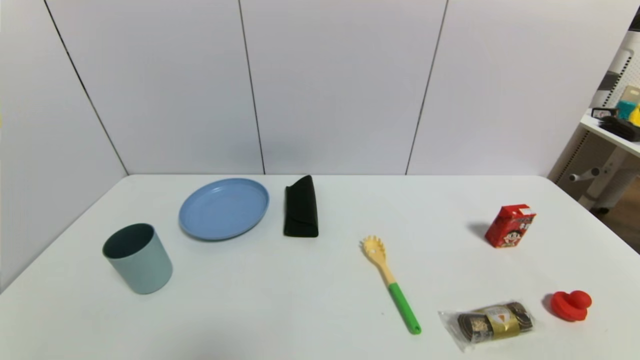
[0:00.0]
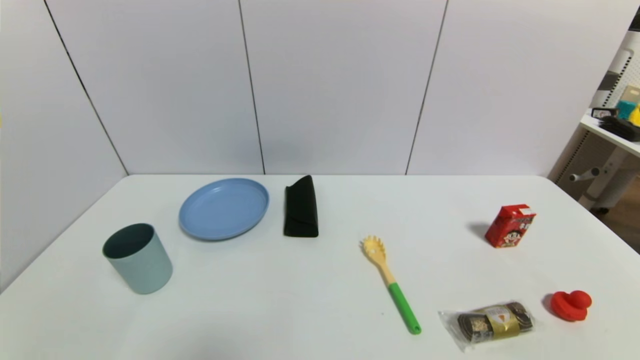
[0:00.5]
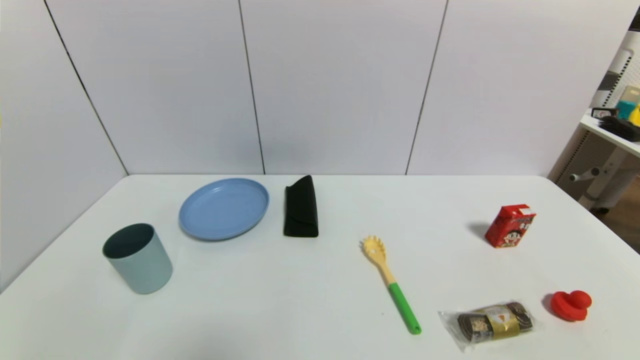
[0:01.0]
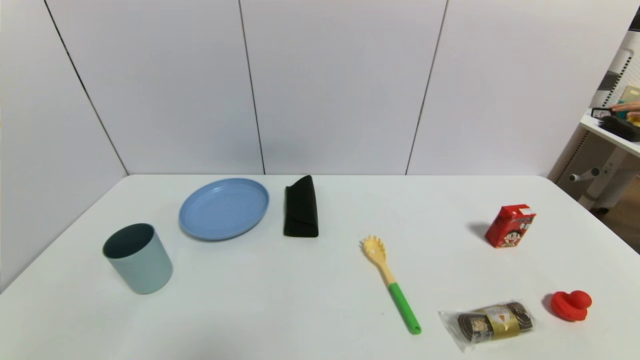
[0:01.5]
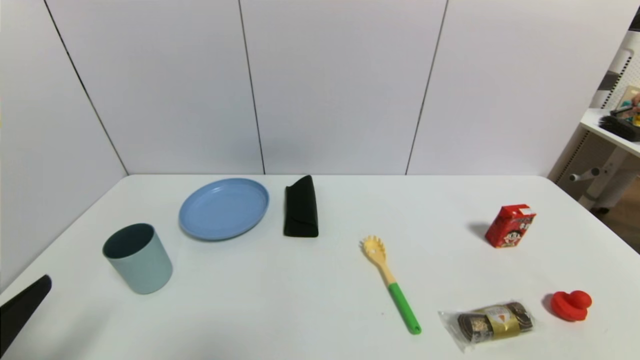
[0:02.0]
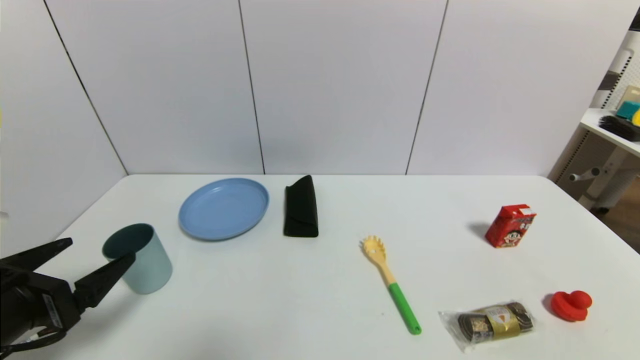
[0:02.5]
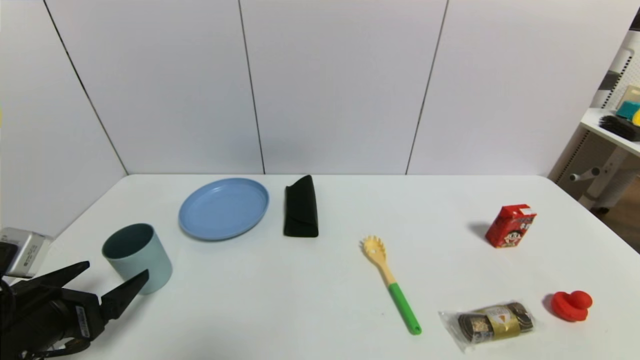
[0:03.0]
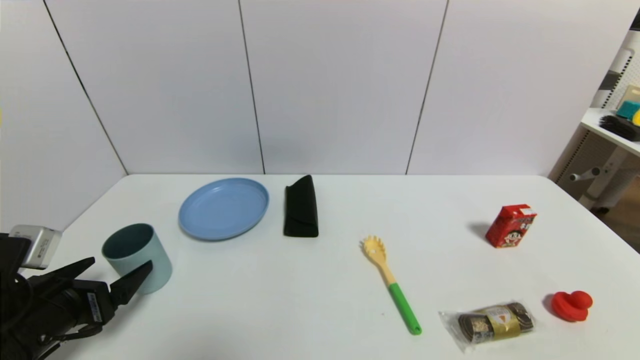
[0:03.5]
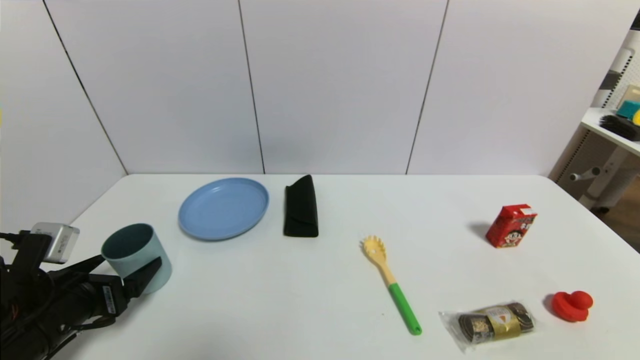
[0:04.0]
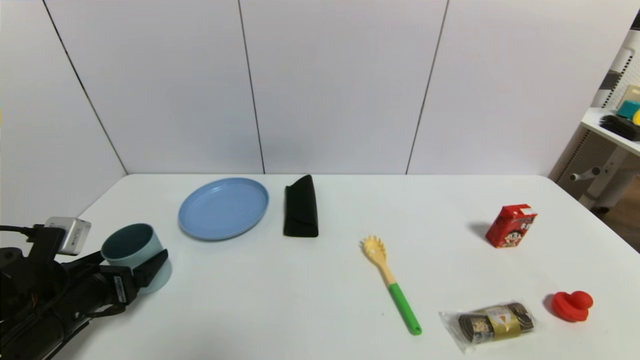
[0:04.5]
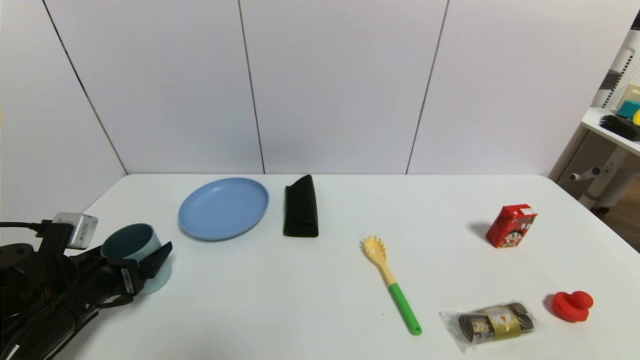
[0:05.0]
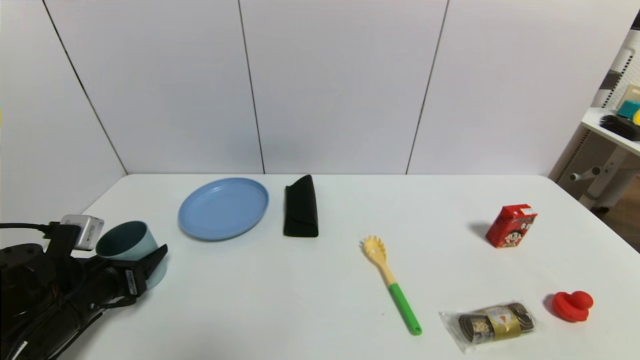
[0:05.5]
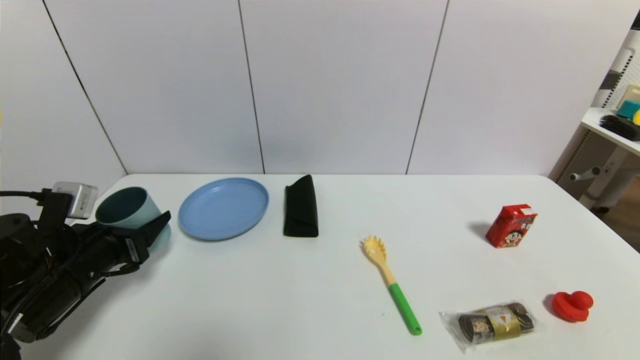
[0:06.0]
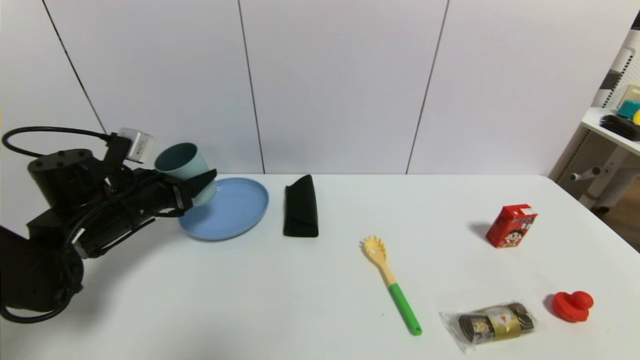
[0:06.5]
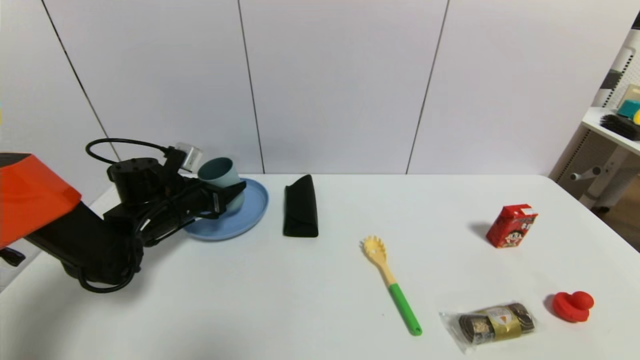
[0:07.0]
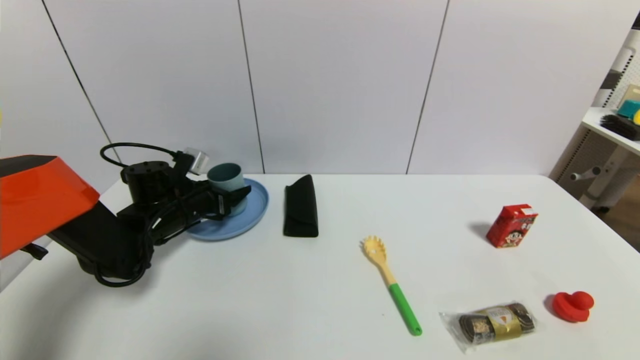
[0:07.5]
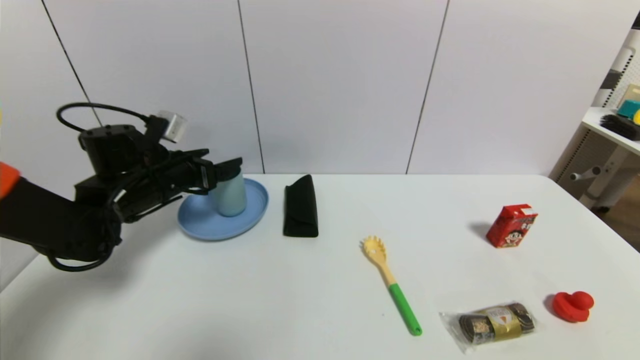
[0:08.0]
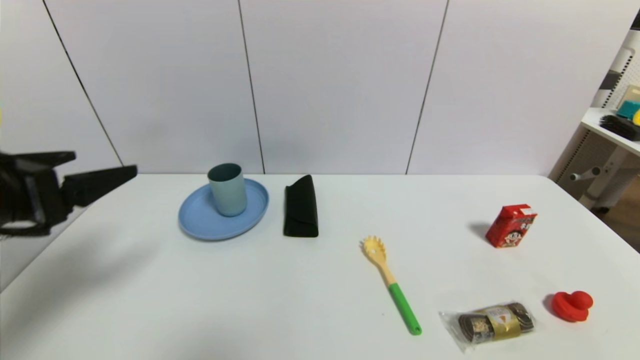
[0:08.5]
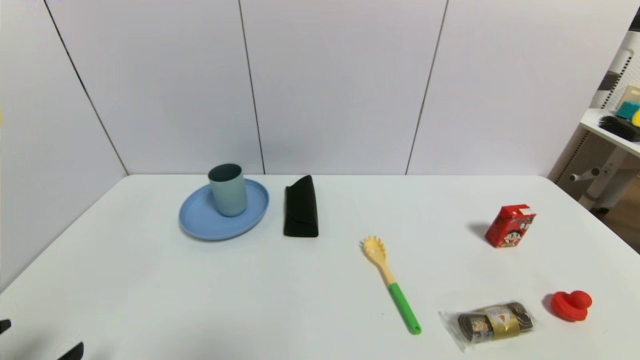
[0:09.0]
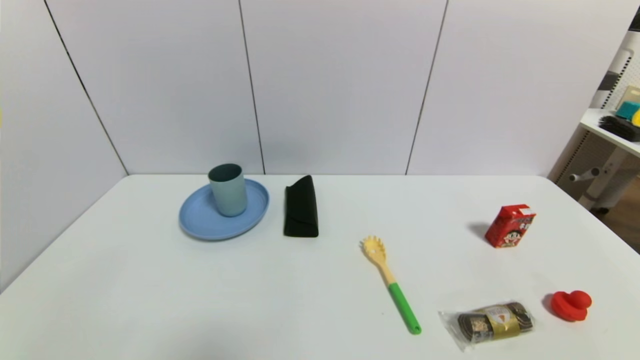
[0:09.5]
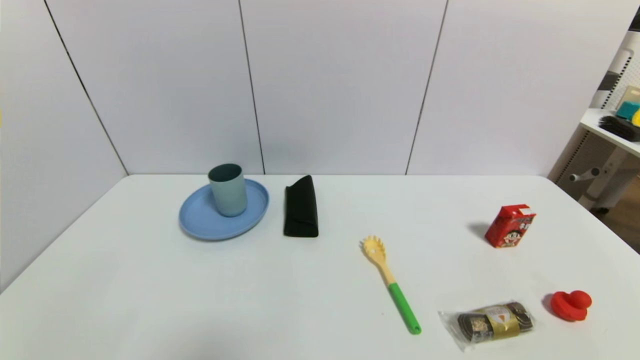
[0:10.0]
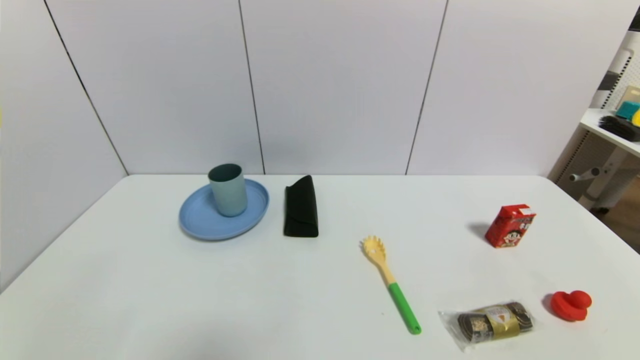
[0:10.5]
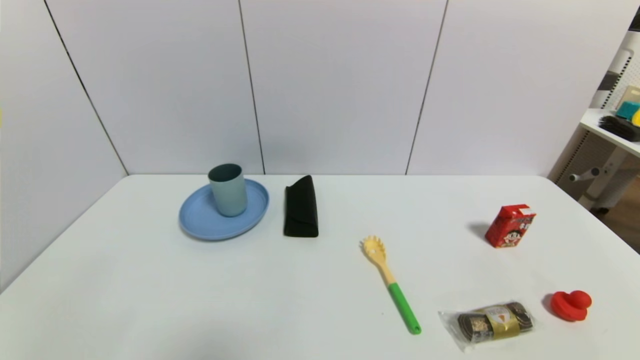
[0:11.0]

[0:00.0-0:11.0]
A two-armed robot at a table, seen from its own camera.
Task of the whole recording: use a gripper to pick the target object and place on the blue plate.
Step, 0:00.0 to 0:05.5: Grasp the blue cup with the left gripper.
Step, 0:06.0 to 0:08.0: Place the blue cup on the blue plate with the left gripper.
0:00.0 to 0:02.0: The left gripper heads upward and forward, covering some 15 cm.
0:02.0 to 0:03.5: The left gripper is displaced forward and downward by some 15 cm.
0:03.5 to 0:05.5: The left gripper goes roughly 5 cm forward, and closes.
0:05.5 to 0:07.5: The left gripper goes some 15 cm forward, and opens.
0:07.5 to 0:09.0: The left gripper shifts approximately 35 cm backward, and opens.
0:09.0 to 0:11.0: The left gripper moves downward, roughly 10 cm.
